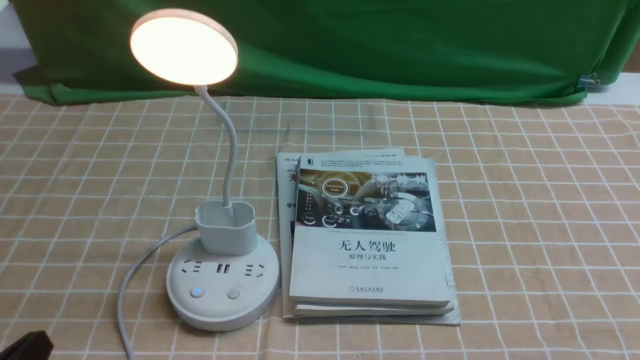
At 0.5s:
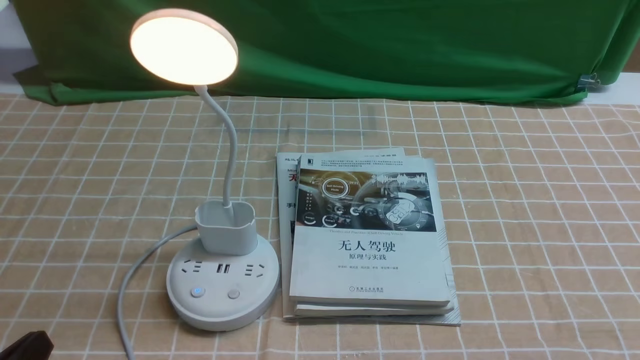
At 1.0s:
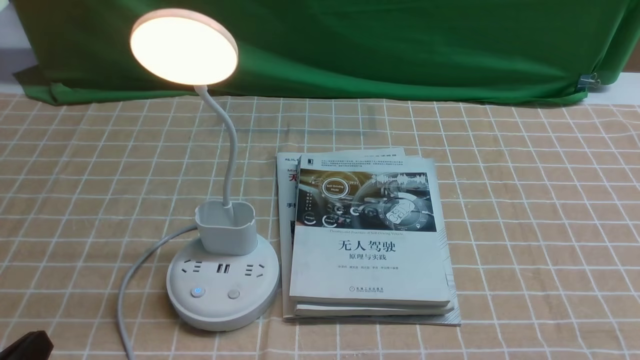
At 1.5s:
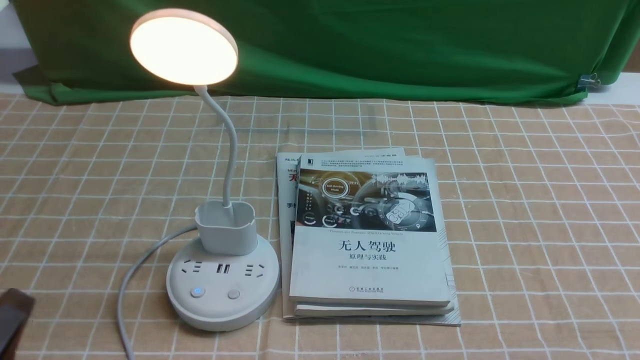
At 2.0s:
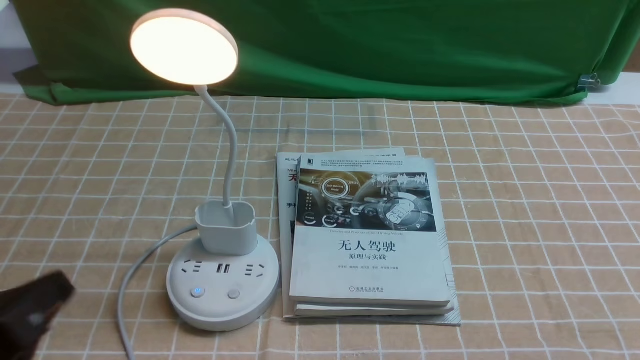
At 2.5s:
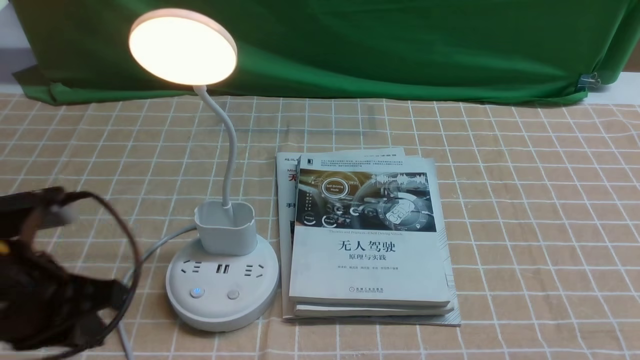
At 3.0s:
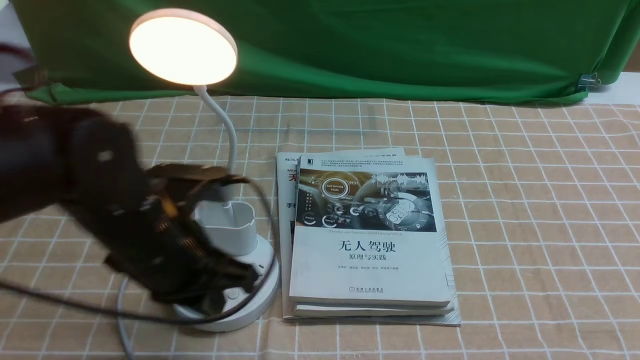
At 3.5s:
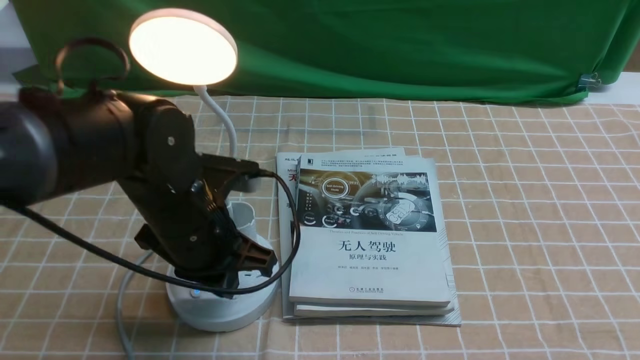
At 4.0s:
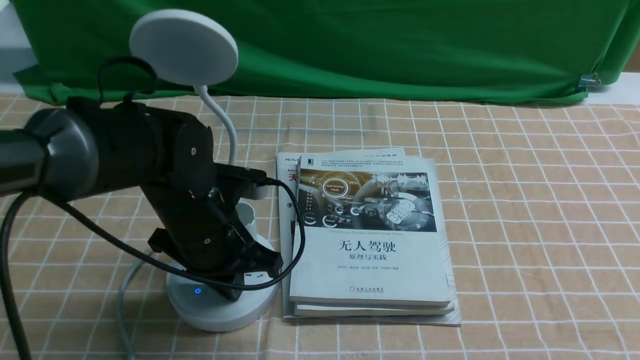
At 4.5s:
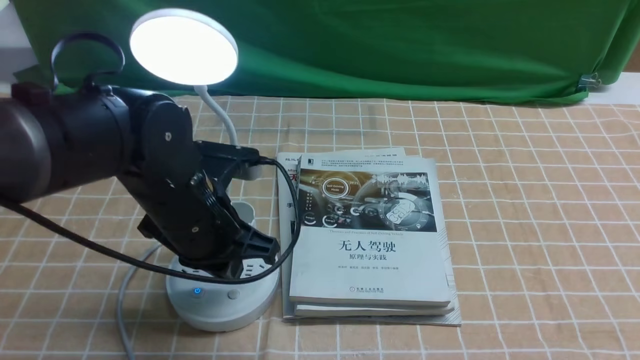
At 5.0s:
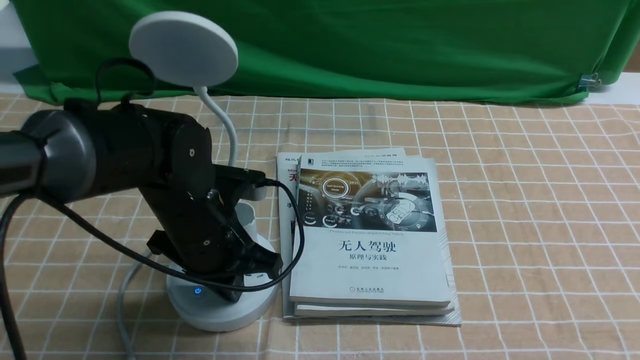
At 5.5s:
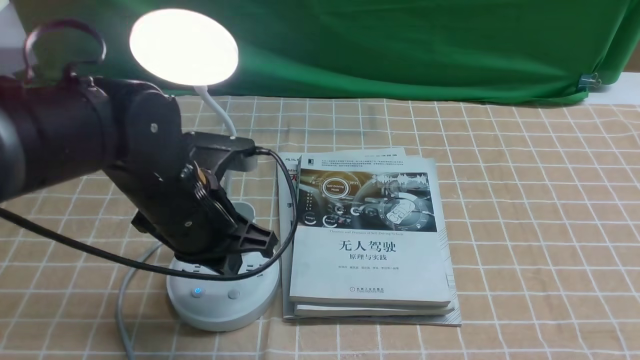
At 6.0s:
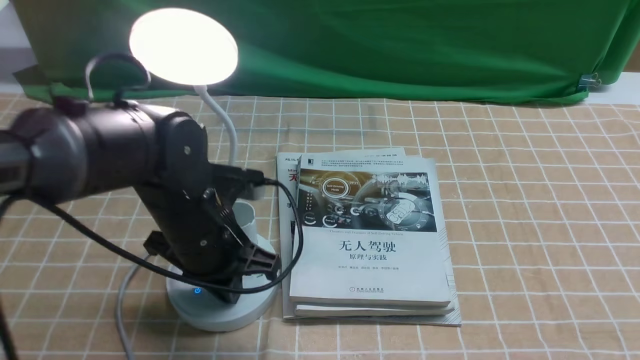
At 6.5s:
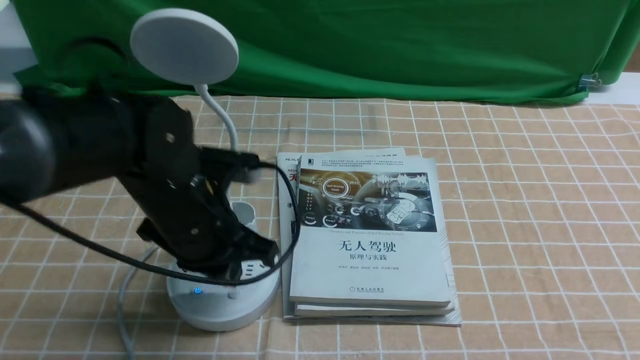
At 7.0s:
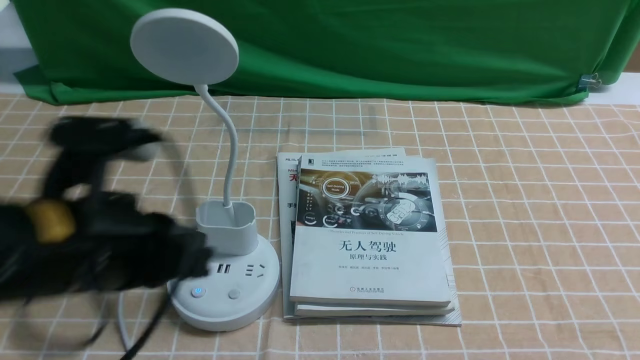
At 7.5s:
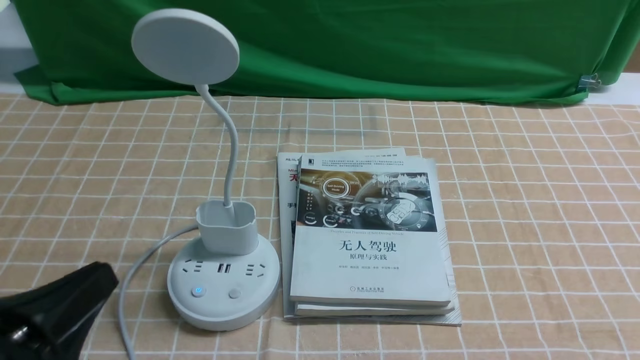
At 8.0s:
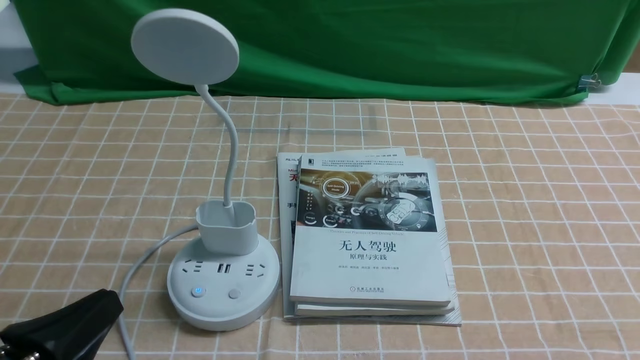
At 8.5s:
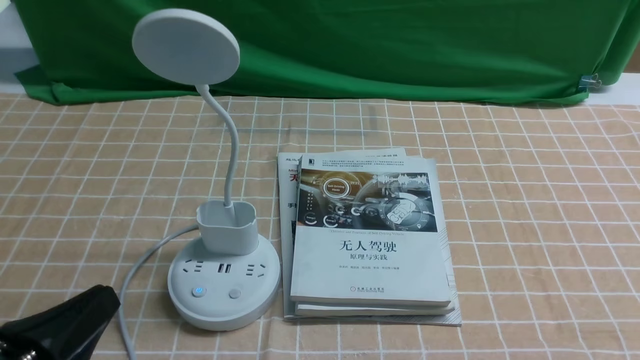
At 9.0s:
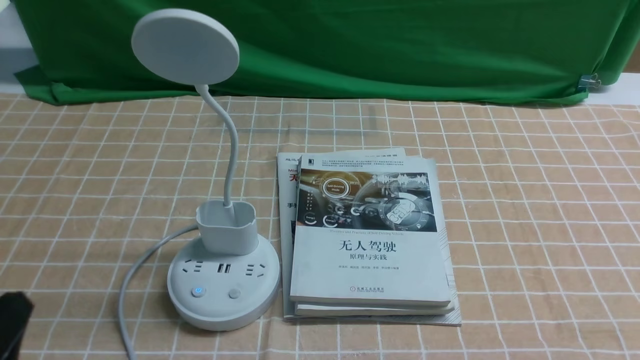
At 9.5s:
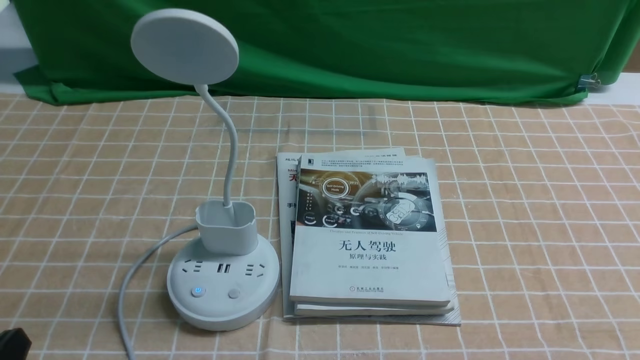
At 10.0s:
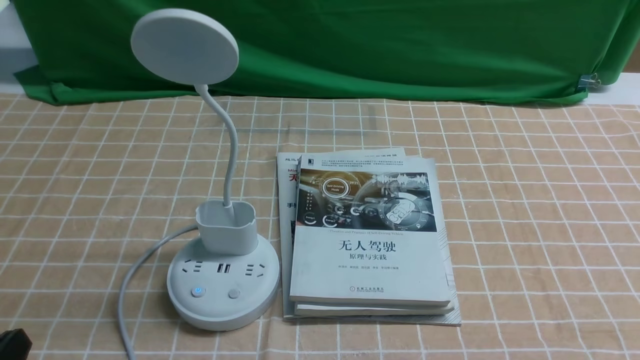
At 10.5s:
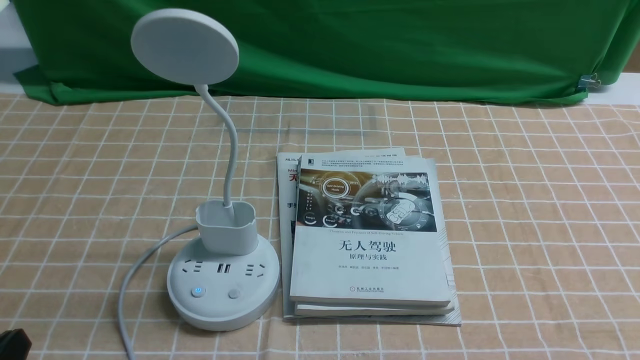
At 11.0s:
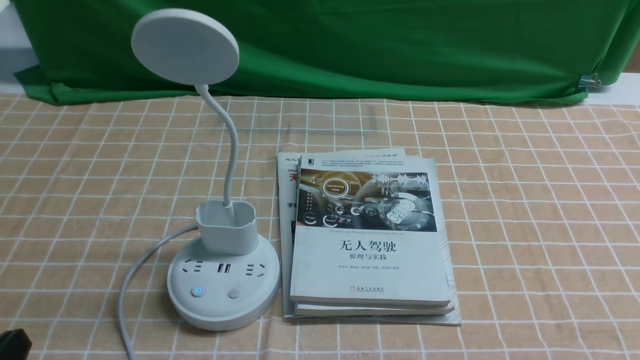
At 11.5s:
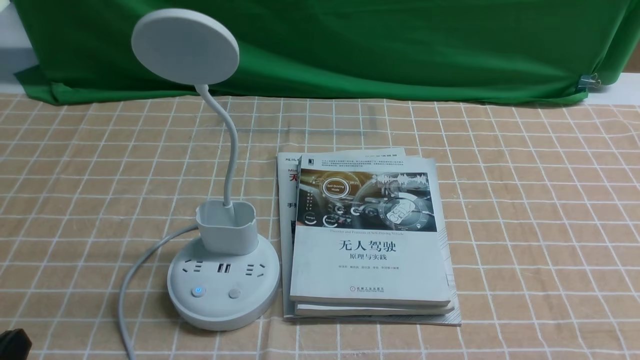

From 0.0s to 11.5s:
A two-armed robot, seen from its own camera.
Task of the whole recording: turn off the desk lamp on the light coffee tablecloth by hand.
Step, from 0.0s to 6.5s: use the left arm to press the button switch on the lamp holder.
From 0.0s to 2.0s: The left gripper goes some 10 cm upward.
From 2.0s to 4.0s: The left gripper travels forward and to the right by approximately 25 cm.
From 4.0s to 6.0s: The left gripper opens.
From 6.0s to 7.5s: The left gripper travels backward and to the left by approximately 25 cm.
From 7.5s to 9.5s: The left gripper moves downward, approximately 5 cm.
From 9.5s to 11.5s: Both grippers stay put.
